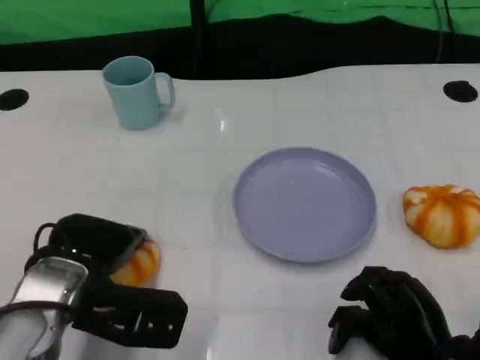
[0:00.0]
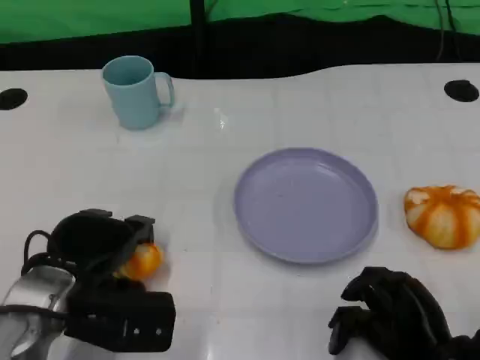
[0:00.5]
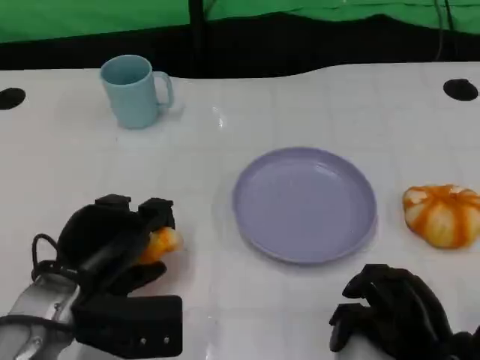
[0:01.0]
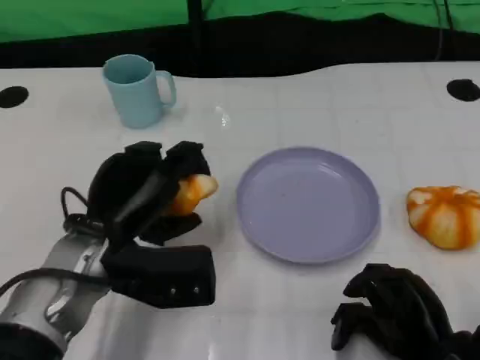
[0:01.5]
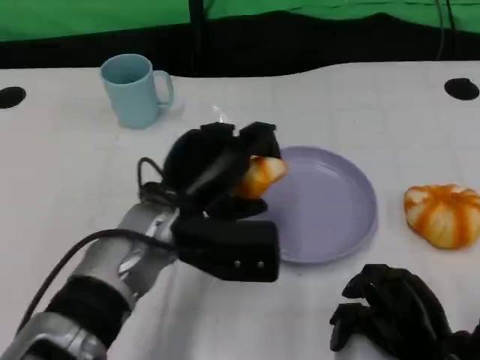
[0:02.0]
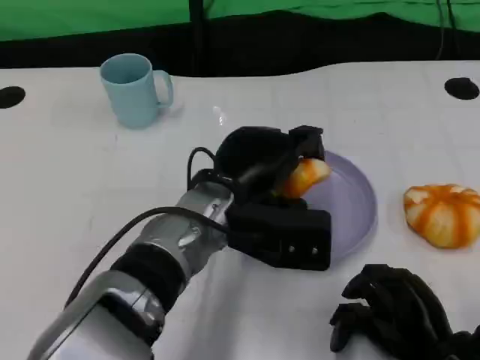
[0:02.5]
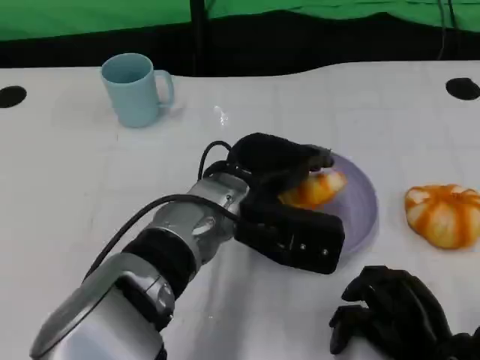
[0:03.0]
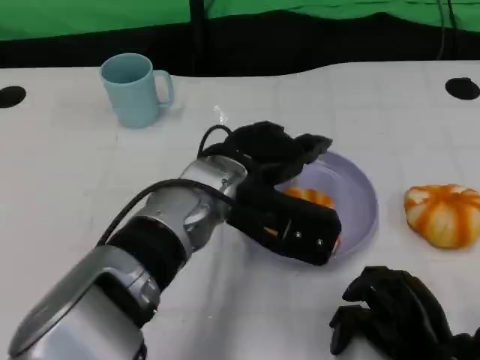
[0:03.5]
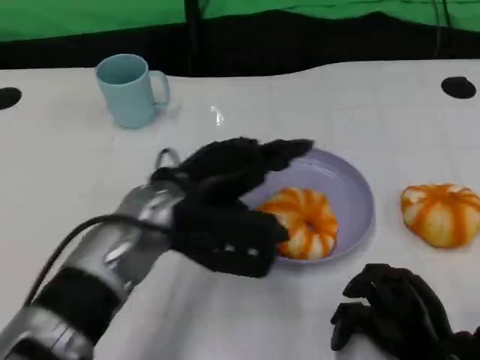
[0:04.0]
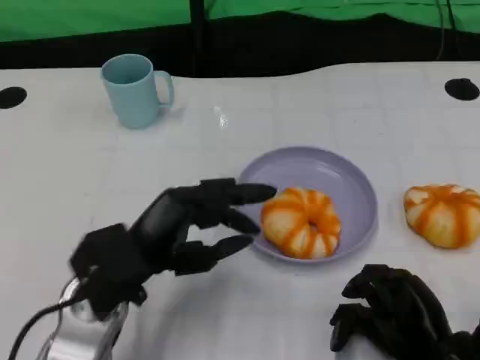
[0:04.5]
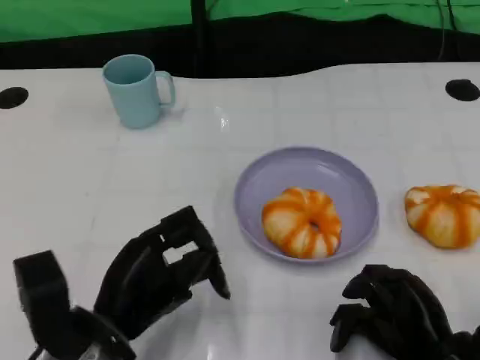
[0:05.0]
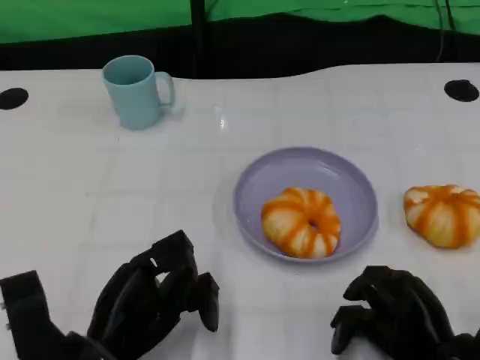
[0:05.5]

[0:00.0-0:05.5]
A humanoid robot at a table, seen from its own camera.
Task of the whole recording: Grasp the bread from the table and place it into the plate.
0:00.0 to 0:02.0: The left hand shifts about 10 cm to the right.
0:02.0 to 0:03.5: The left hand moves some 5 cm.
0:03.5 to 0:05.5: The left hand is displaced to the left, backward and downward by approximately 20 cm.

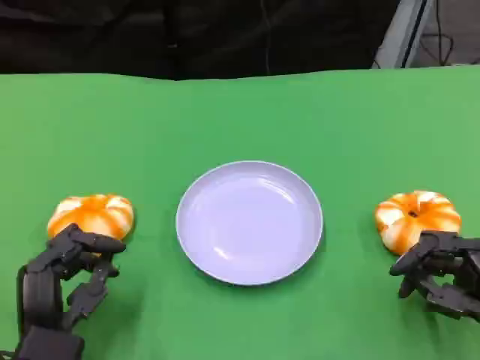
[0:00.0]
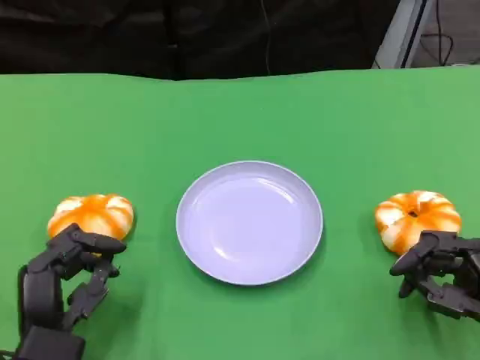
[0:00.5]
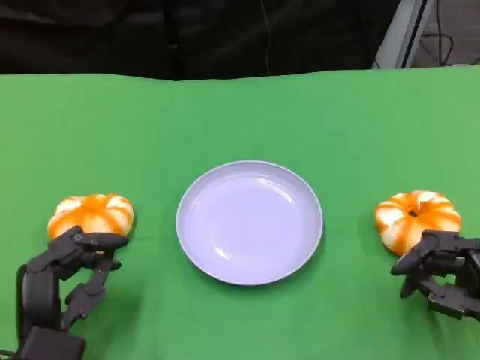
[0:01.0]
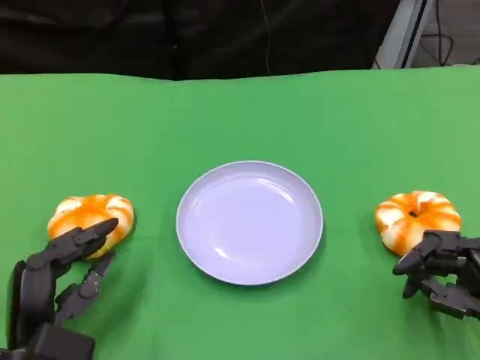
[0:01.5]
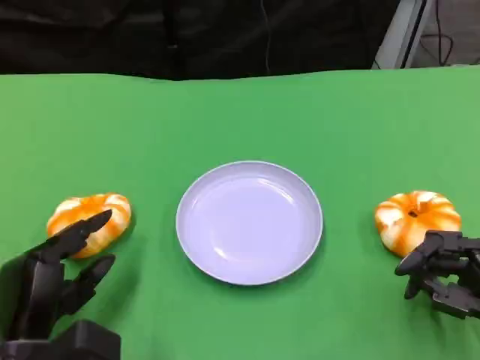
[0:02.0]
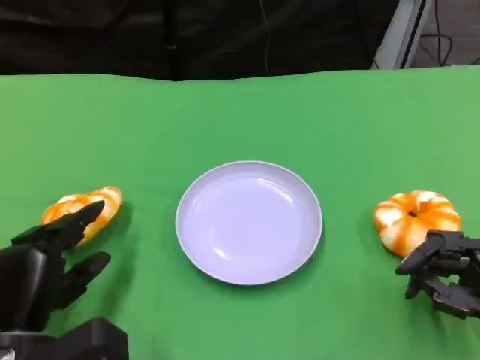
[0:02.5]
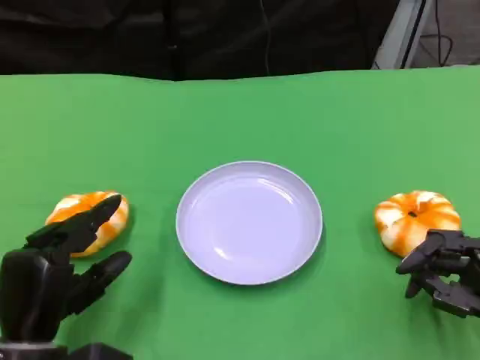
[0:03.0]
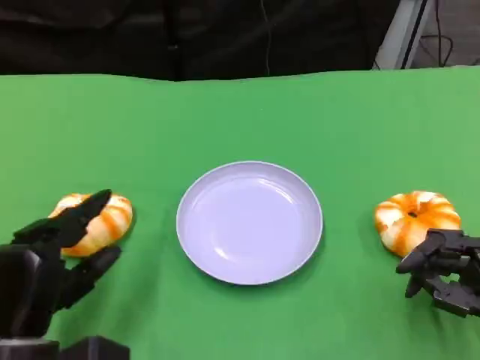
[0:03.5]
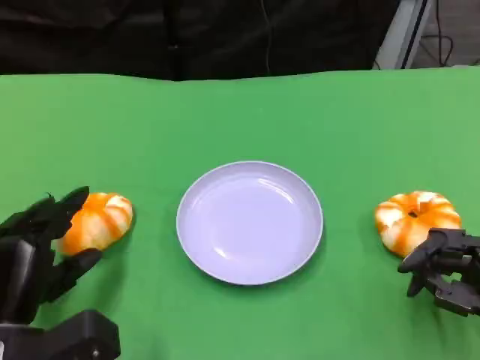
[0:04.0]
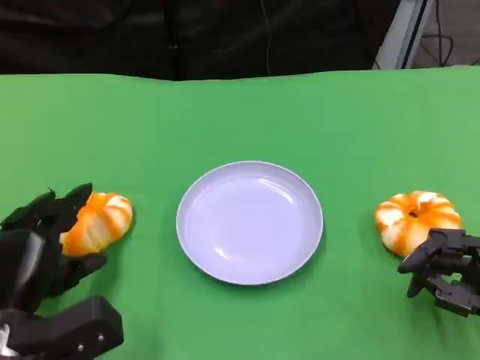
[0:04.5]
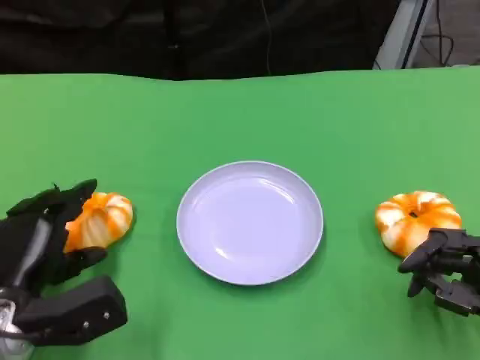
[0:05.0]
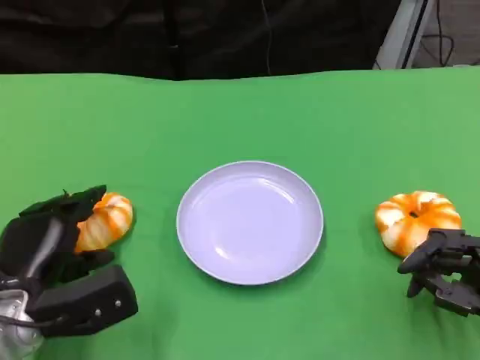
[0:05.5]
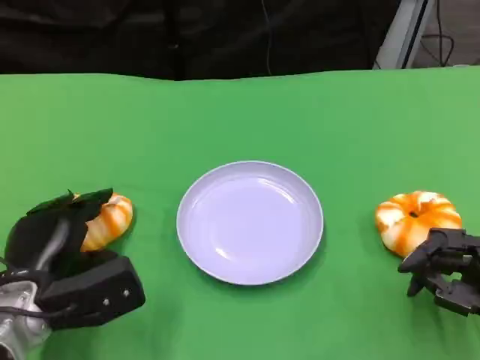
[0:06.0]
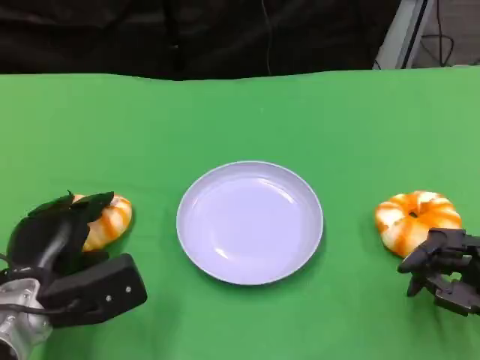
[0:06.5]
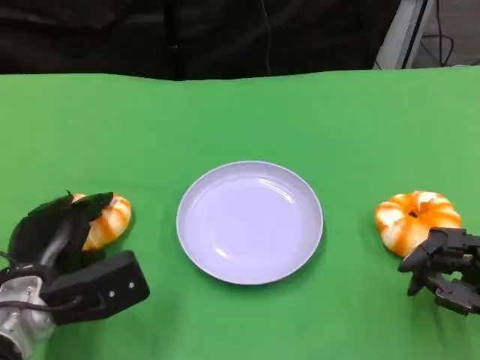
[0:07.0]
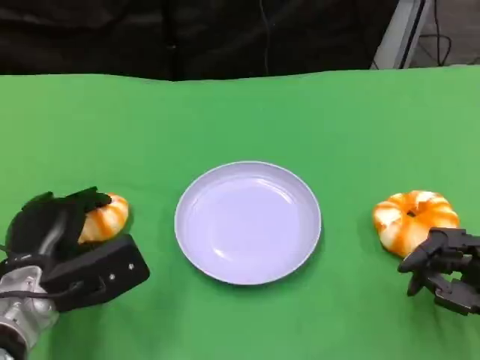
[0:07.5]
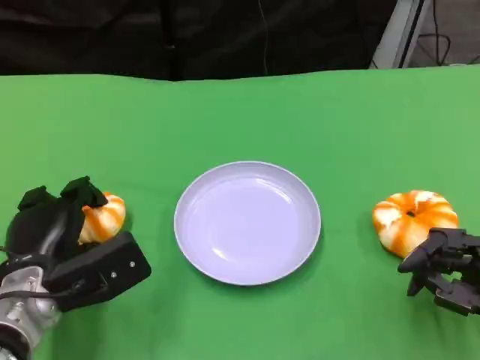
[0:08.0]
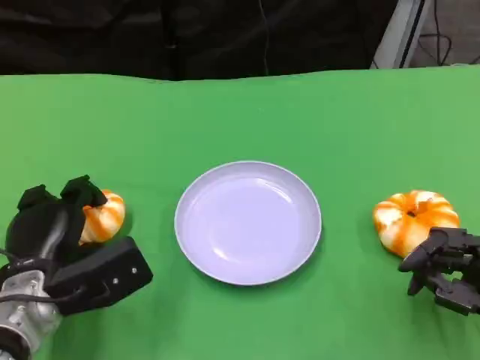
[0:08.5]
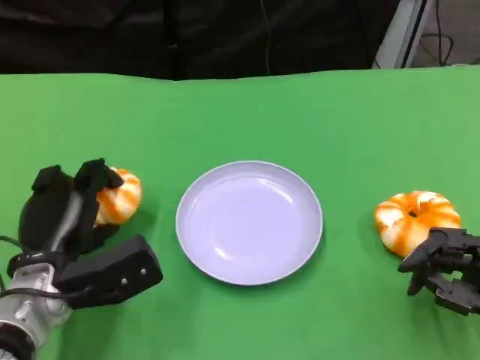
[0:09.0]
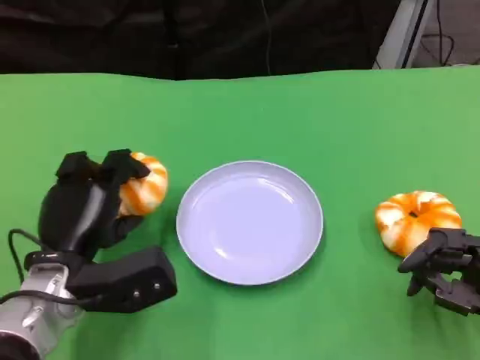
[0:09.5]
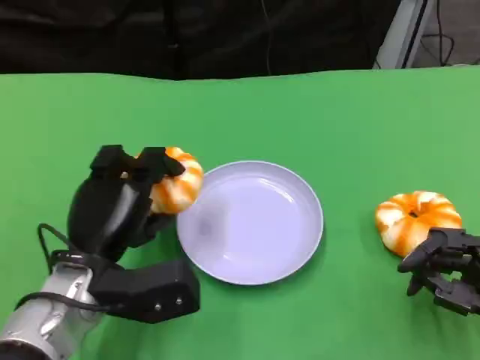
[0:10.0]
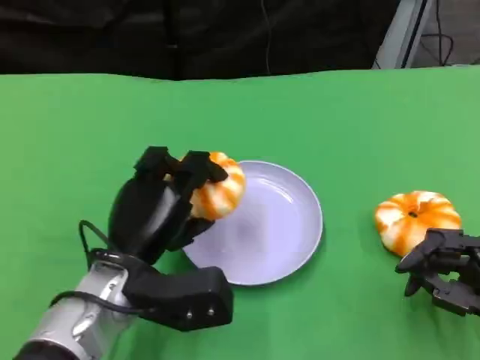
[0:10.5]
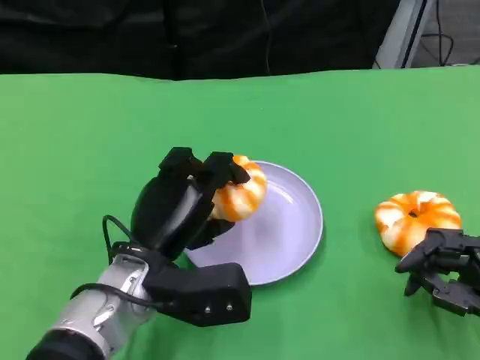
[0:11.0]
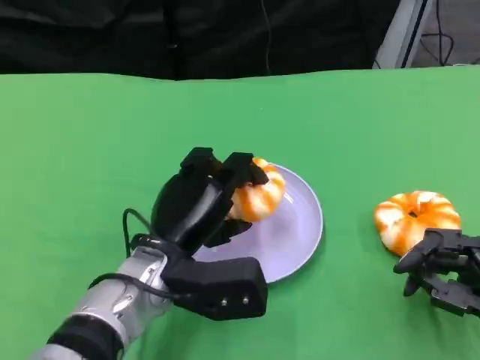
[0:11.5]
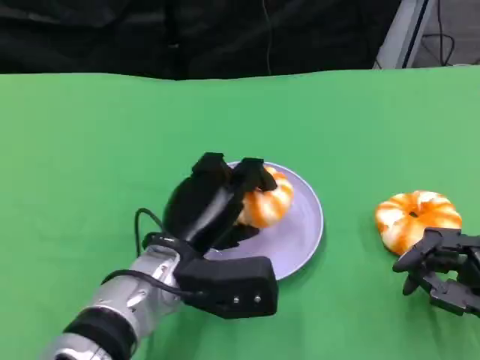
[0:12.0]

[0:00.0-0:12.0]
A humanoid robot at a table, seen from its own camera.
Task of the whole recording: Grasp the bread from the table and place it into the plate.
0:02.0 to 0:04.0: There are only small adjustments of the hands.
0:06.0 to 0:08.0: The hands stay close to where they were, moving slightly.
0:08.0 to 0:10.0: The left hand shifts some 5 cm to the right.
0:10.0 to 0:12.0: The left hand moves to the right, some 10 cm.

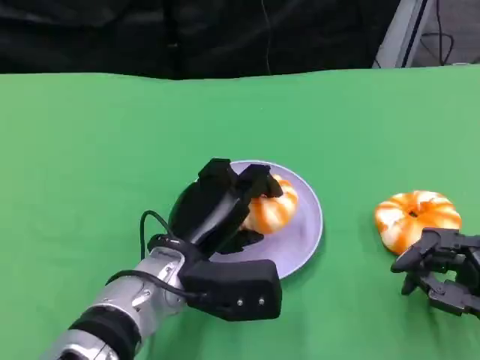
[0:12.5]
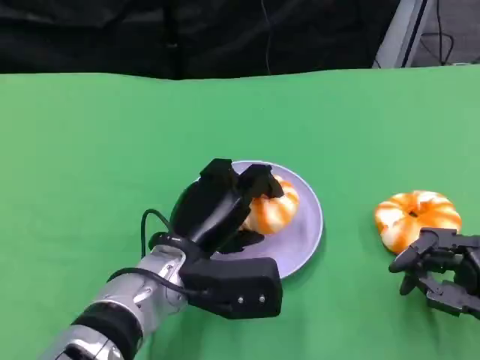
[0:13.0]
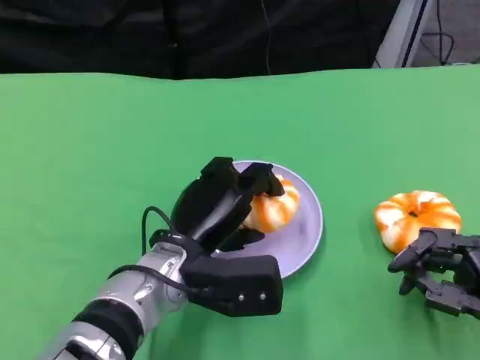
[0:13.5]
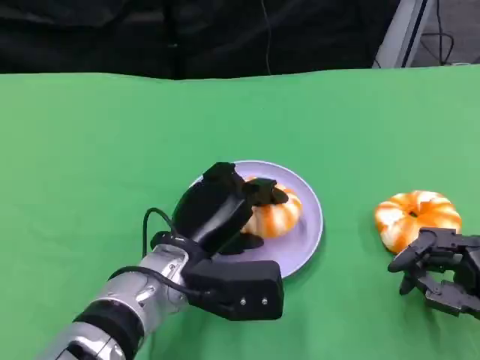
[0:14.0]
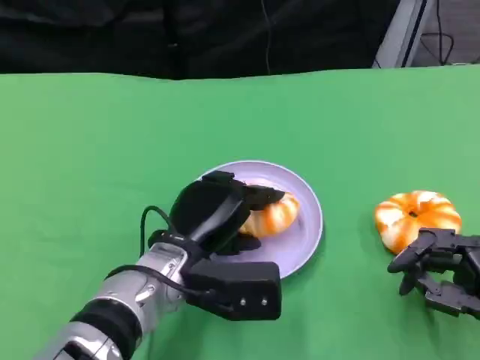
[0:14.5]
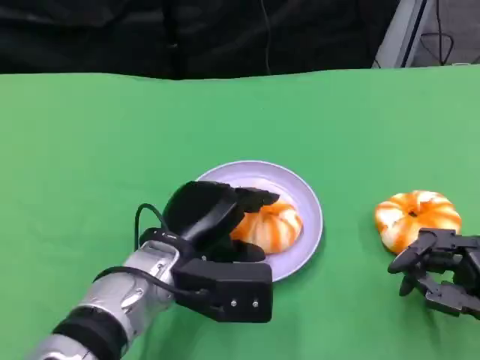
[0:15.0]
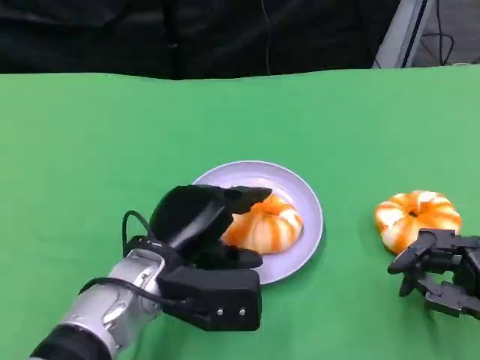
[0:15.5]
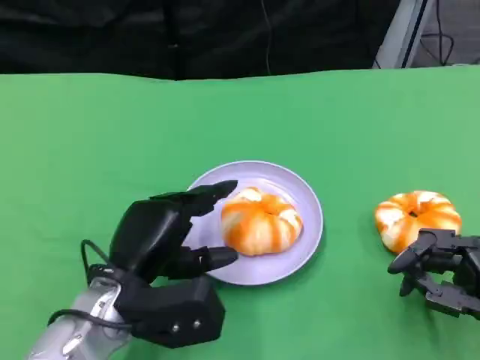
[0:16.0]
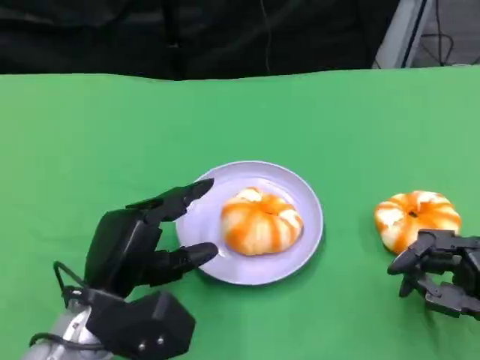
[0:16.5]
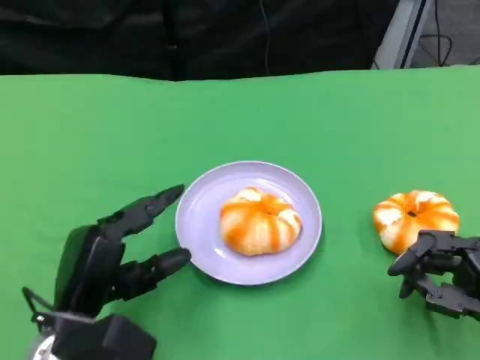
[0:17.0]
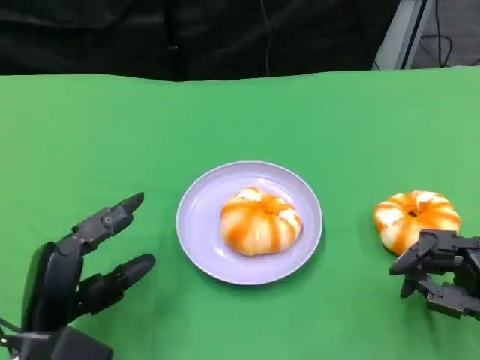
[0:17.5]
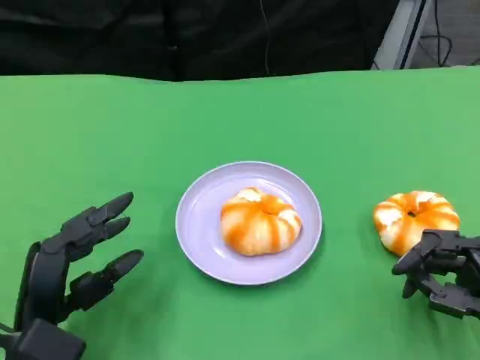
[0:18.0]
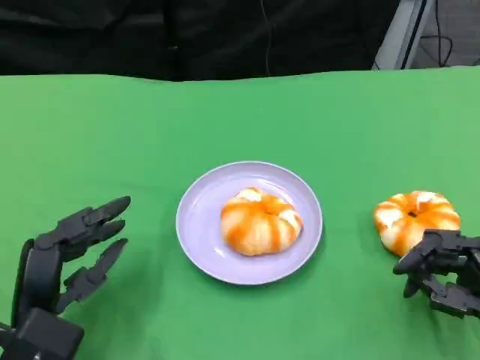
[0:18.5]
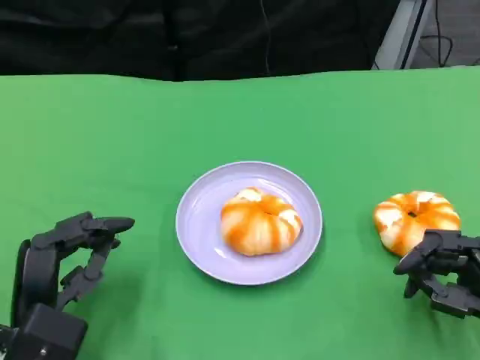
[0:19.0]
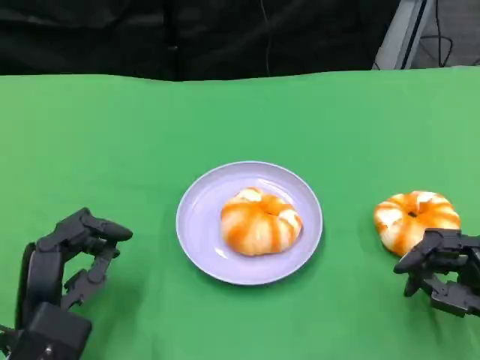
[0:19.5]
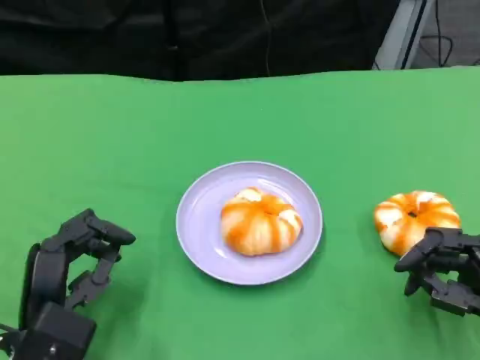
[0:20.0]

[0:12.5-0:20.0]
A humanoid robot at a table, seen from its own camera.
Task of the whole recording: Grasp the bread from the table and place it into the plate.
0:12.5 to 0:14.5: The hands move only a little.
0:14.5 to 0:16.5: The left hand goes about 10 cm to the left.
0:16.5 to 0:18.0: The left hand moves to the left, approximately 5 cm.
0:18.0 to 0:20.0: The hands stay close to where they were, moving slightly.
